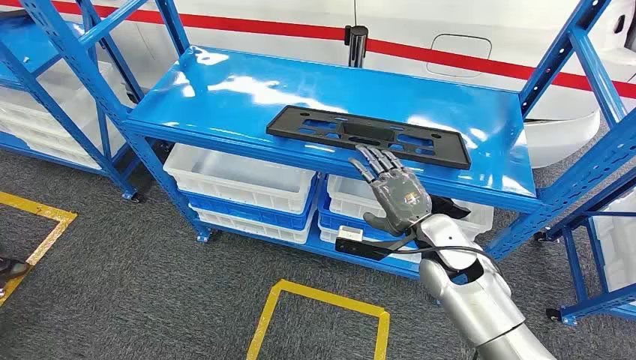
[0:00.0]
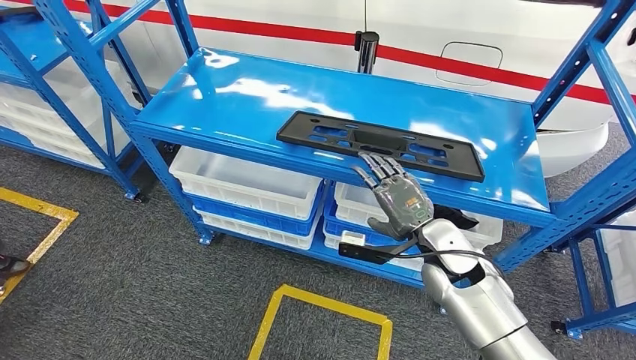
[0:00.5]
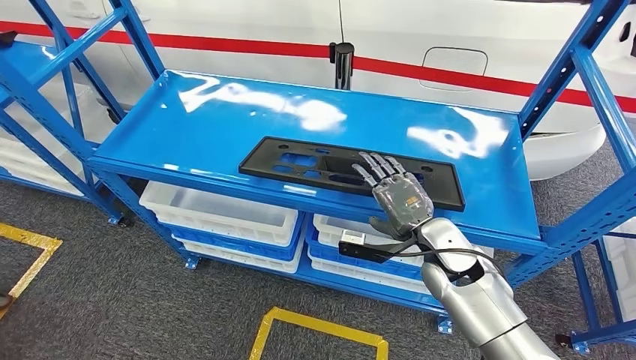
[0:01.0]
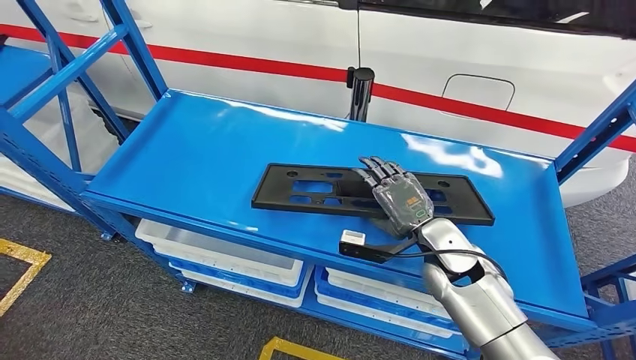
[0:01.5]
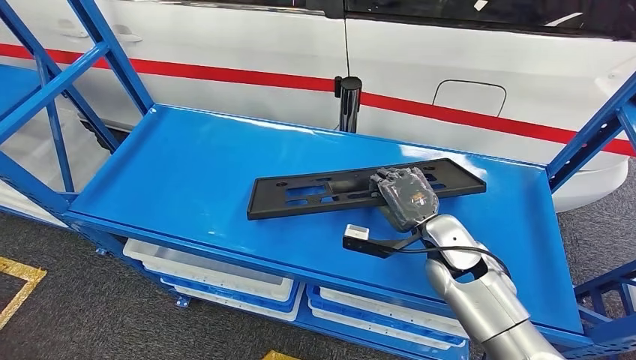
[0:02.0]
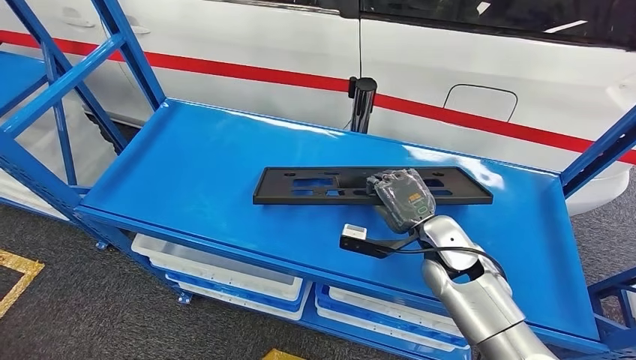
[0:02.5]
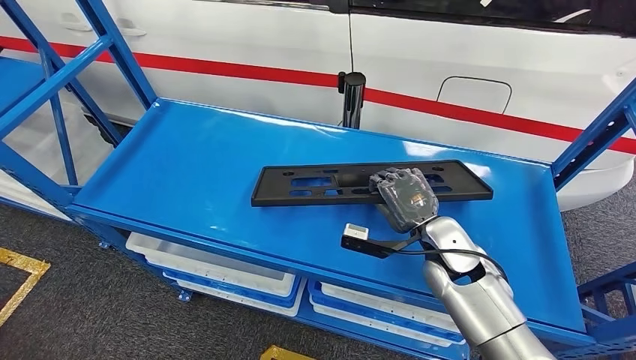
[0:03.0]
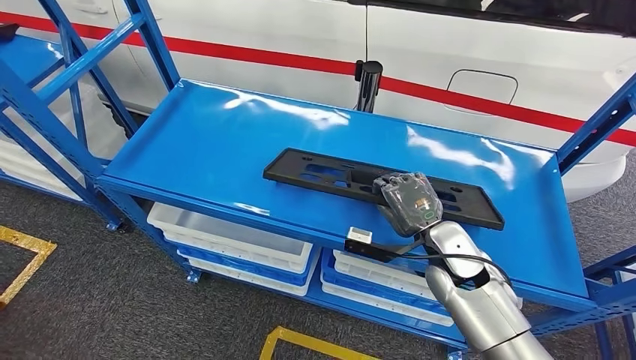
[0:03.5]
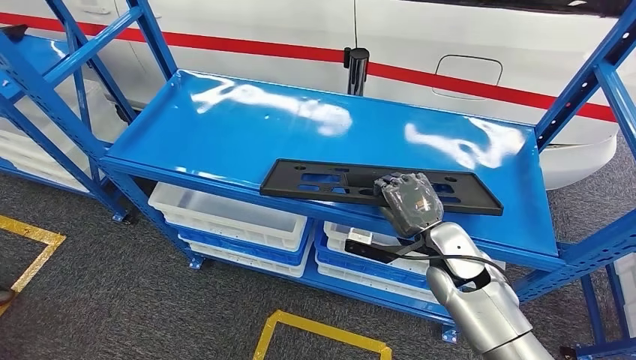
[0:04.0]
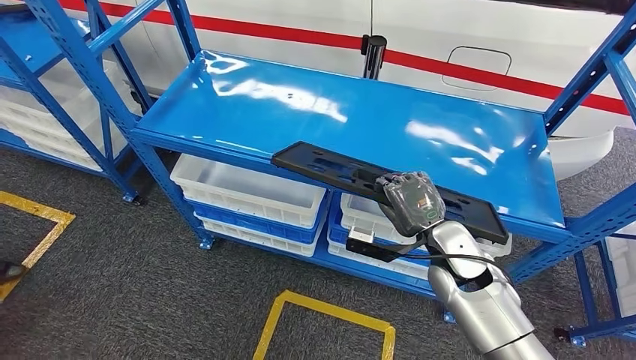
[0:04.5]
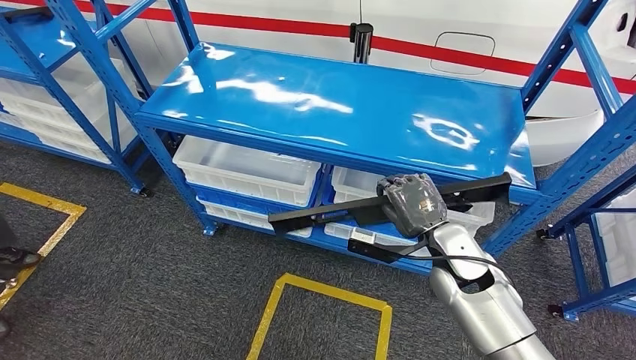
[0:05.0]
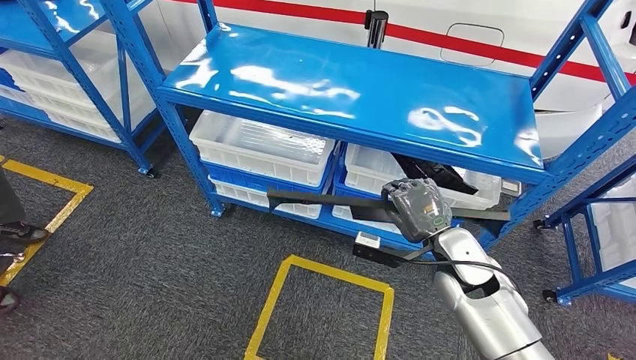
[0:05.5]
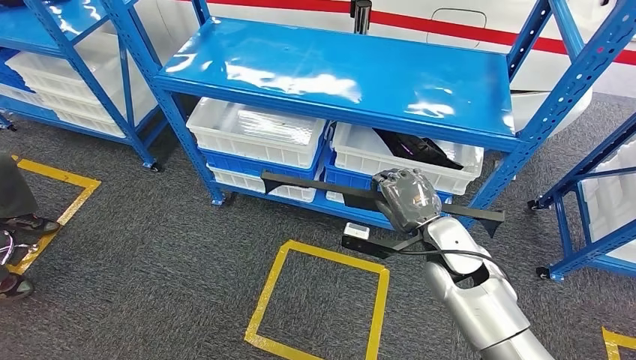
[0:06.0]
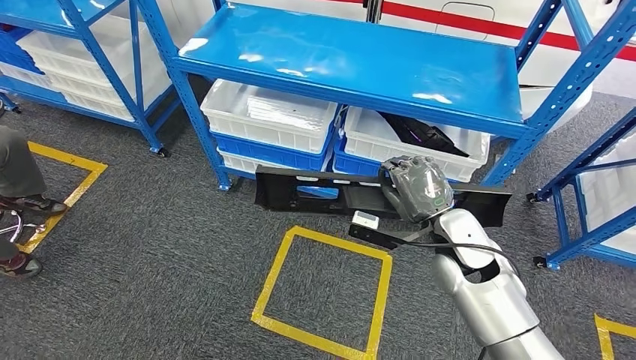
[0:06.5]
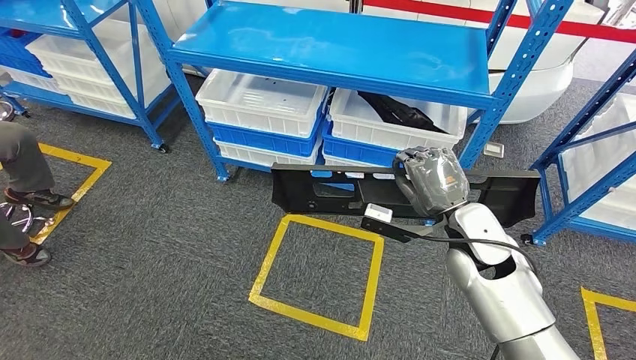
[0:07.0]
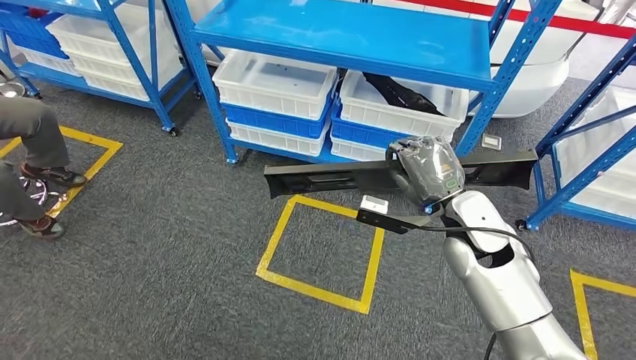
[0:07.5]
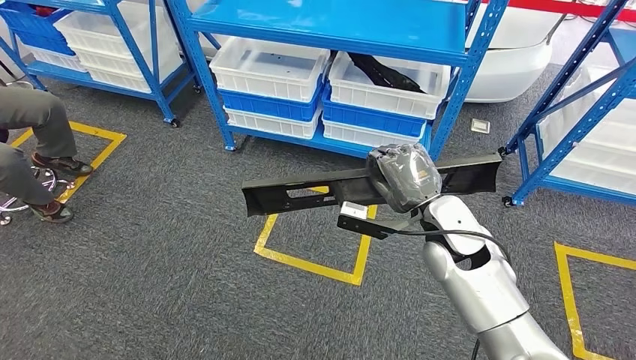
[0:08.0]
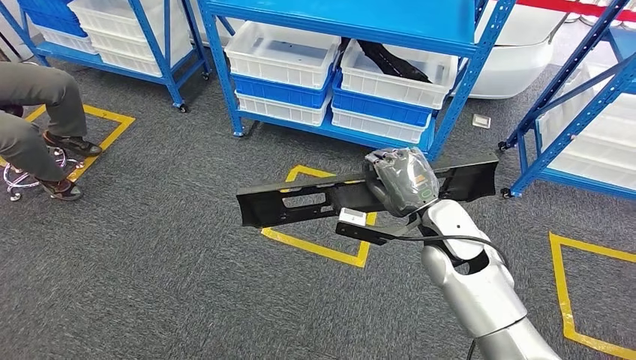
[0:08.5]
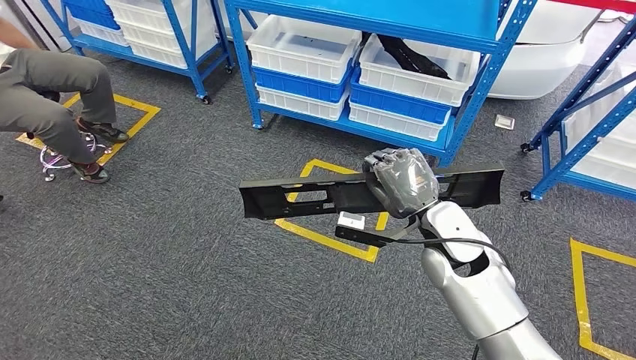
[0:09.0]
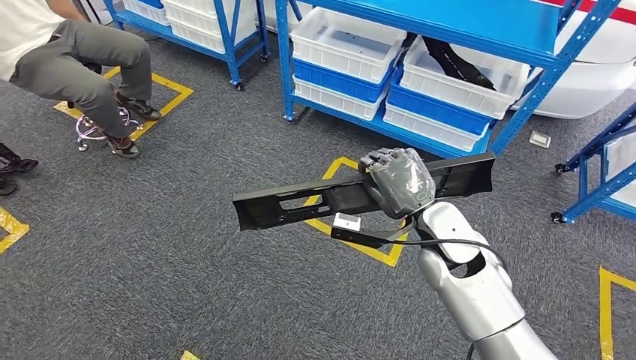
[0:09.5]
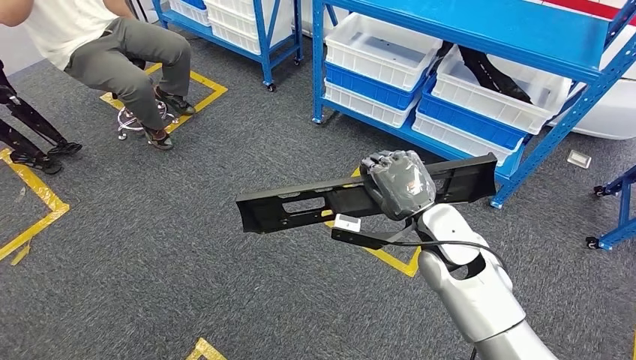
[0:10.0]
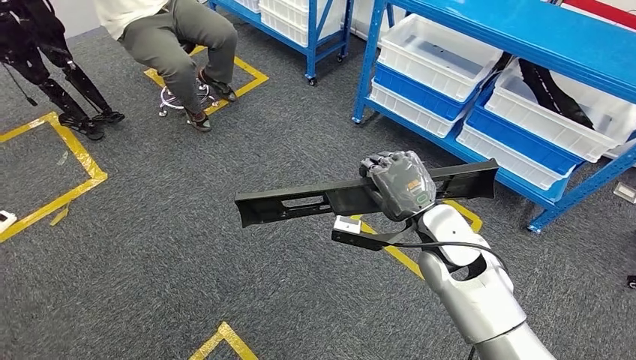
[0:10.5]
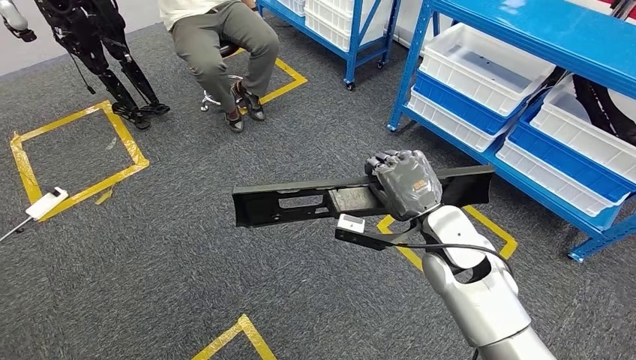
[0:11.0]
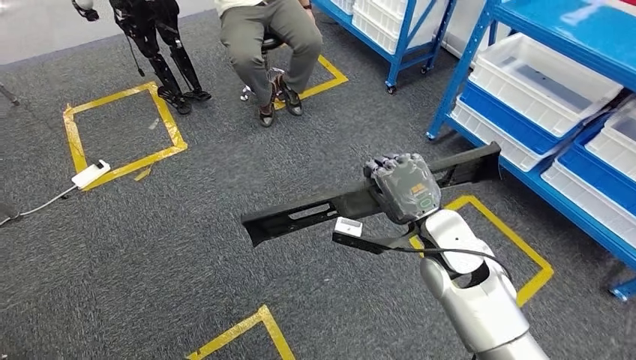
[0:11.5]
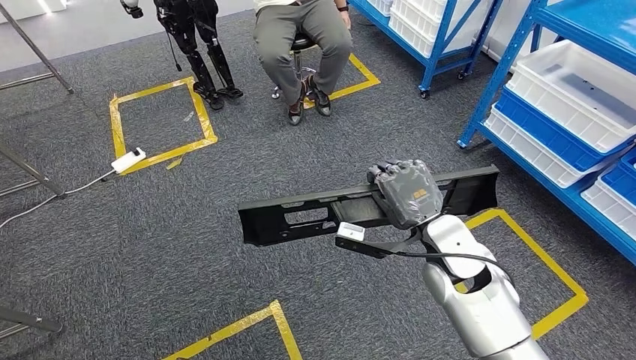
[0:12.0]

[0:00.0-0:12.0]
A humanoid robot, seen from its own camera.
Step, 0:00.0 to 0:06.0: Pick up the large material from the shelf.

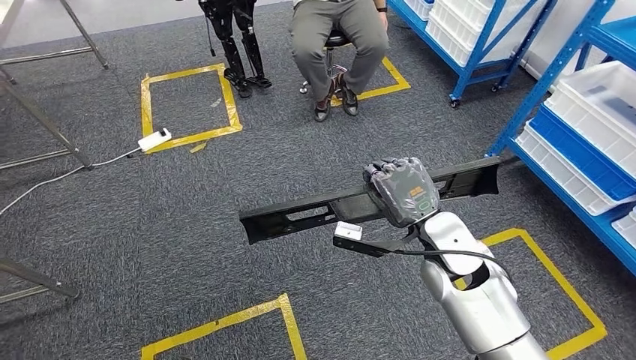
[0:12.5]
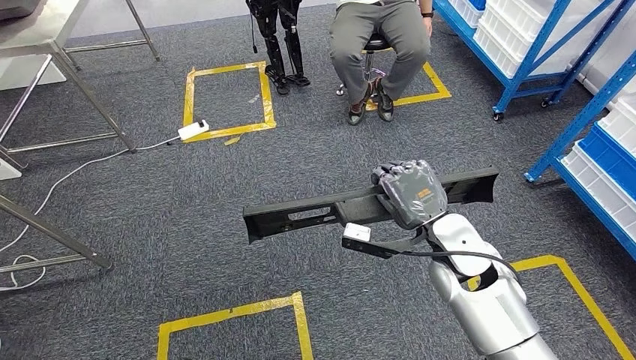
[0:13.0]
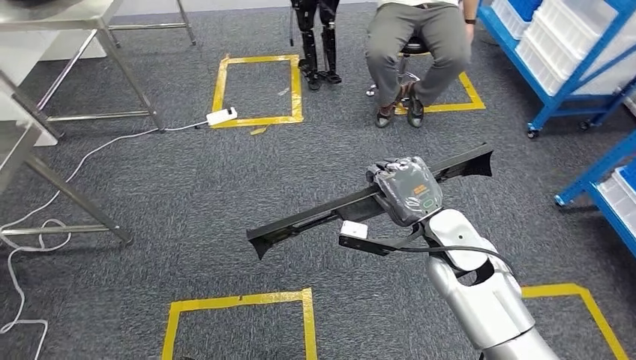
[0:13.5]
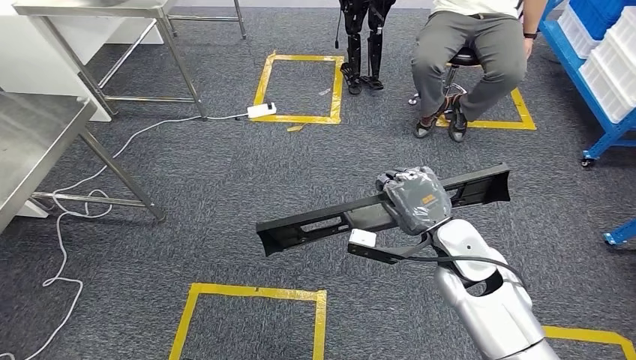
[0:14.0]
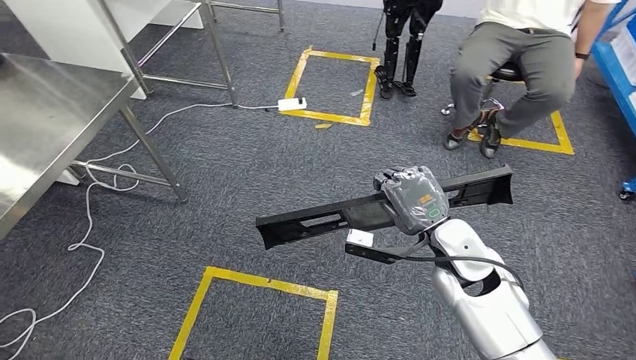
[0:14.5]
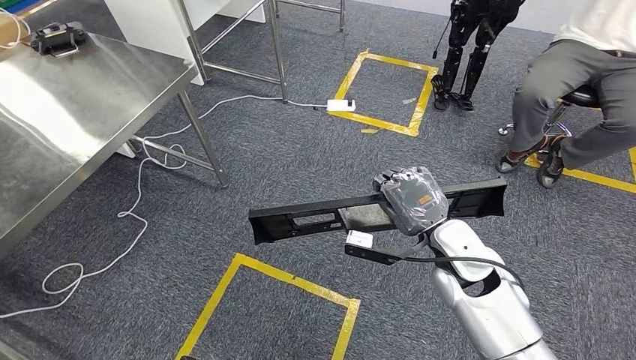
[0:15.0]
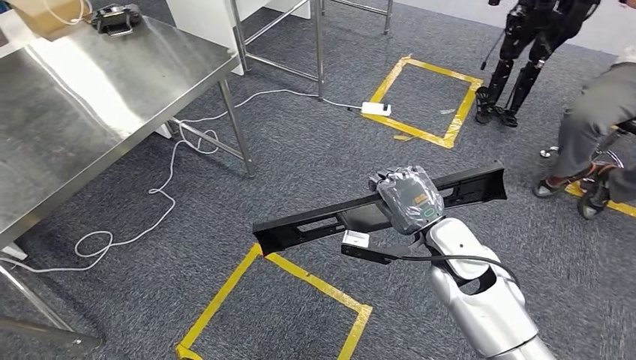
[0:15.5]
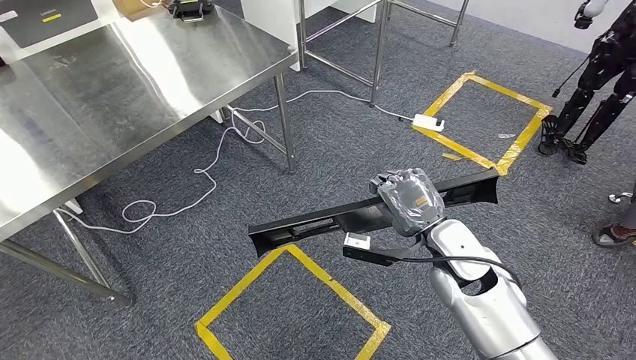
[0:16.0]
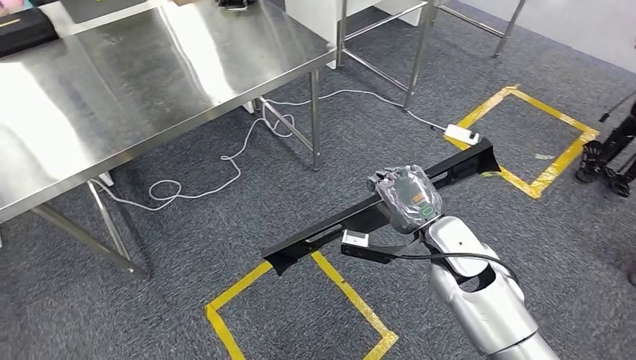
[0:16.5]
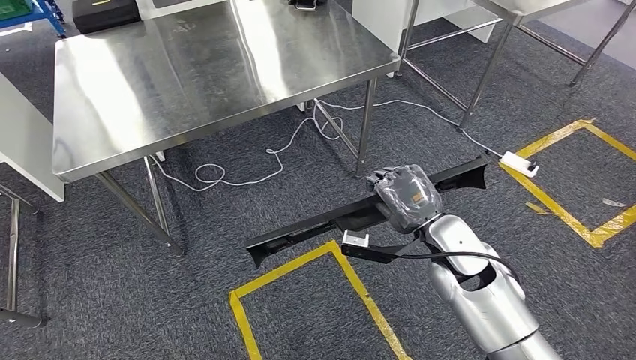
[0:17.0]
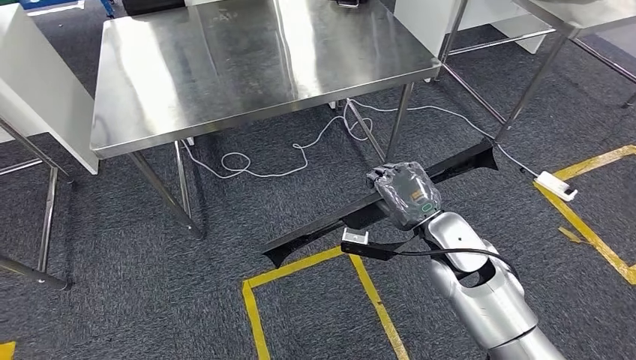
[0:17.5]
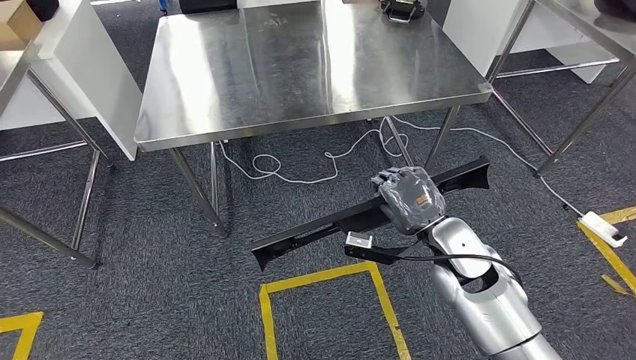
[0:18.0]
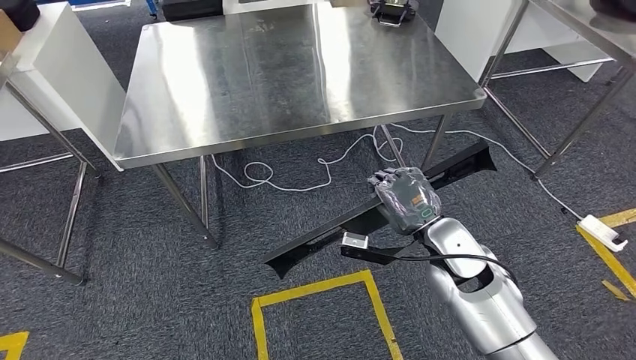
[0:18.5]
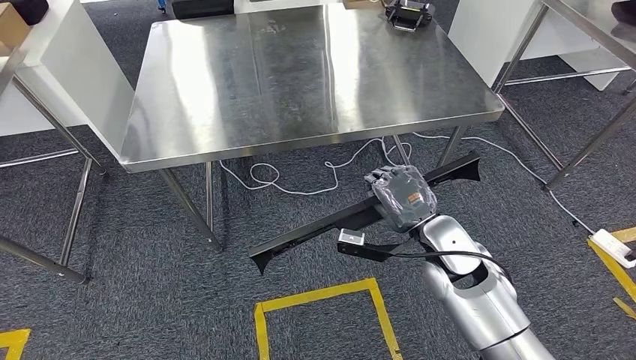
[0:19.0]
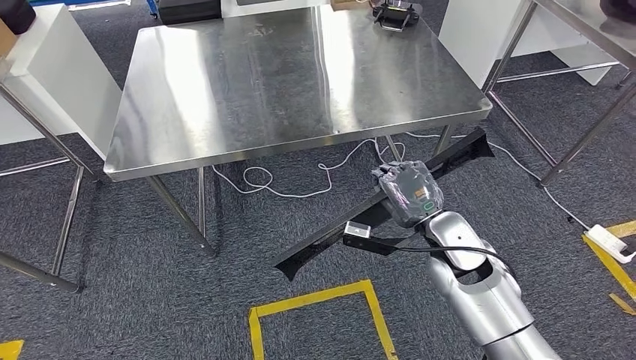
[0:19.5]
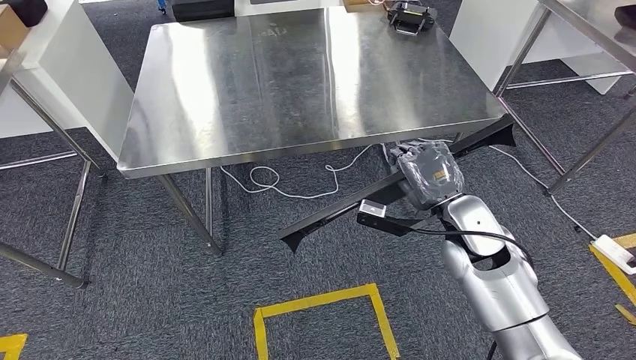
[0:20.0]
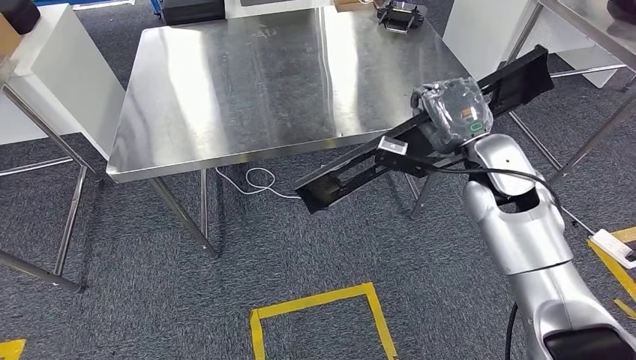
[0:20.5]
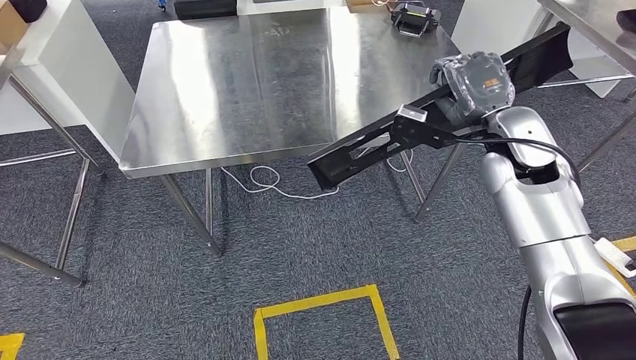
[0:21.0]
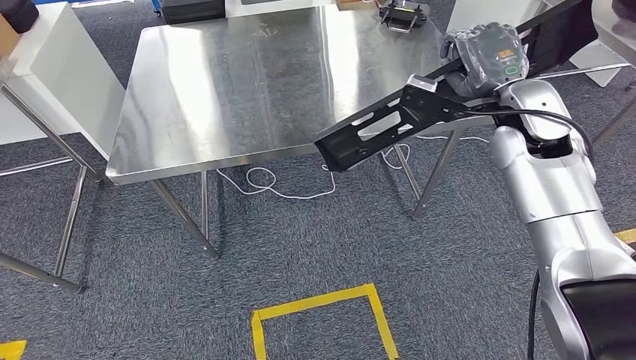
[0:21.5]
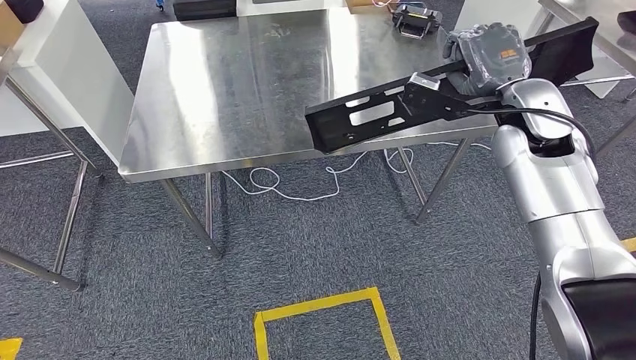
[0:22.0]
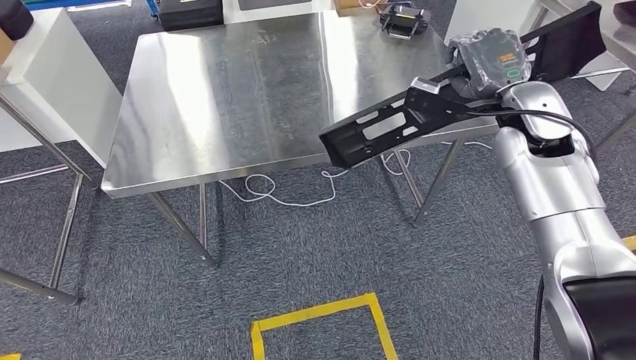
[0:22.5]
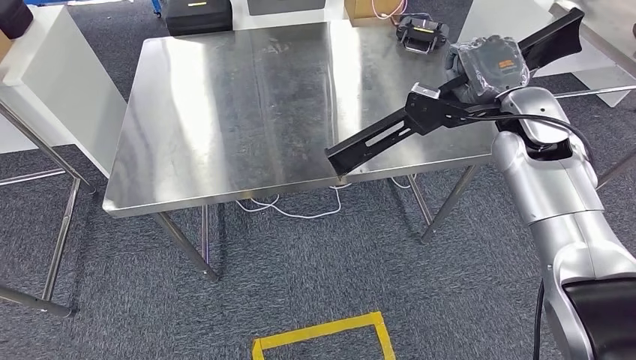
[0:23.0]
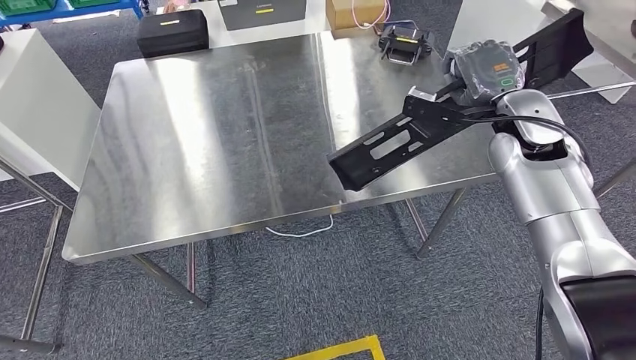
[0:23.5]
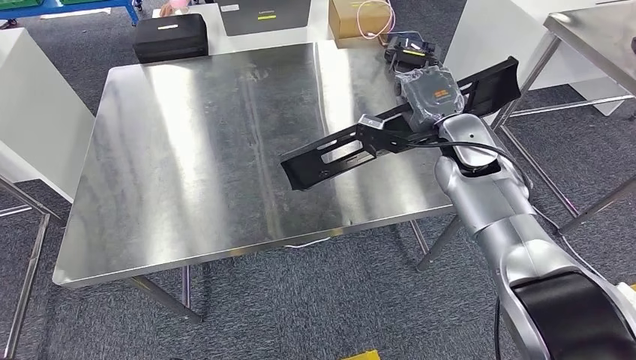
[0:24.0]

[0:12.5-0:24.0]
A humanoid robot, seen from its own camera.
Step, 0:12.5 to 0:19.5: Move the large material to the workbench.
